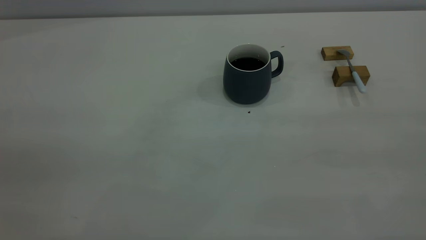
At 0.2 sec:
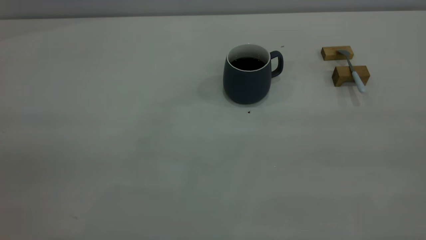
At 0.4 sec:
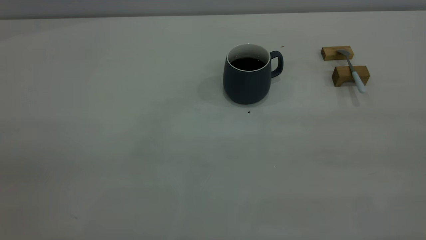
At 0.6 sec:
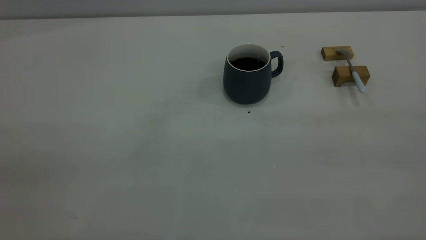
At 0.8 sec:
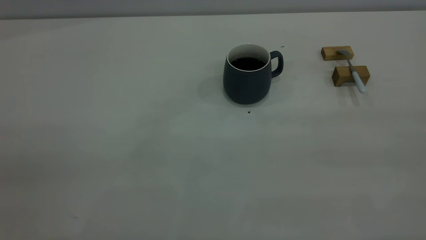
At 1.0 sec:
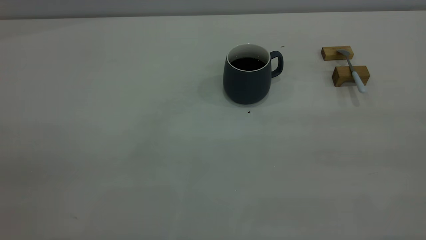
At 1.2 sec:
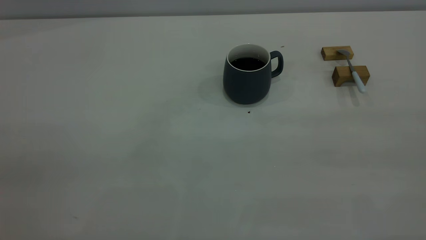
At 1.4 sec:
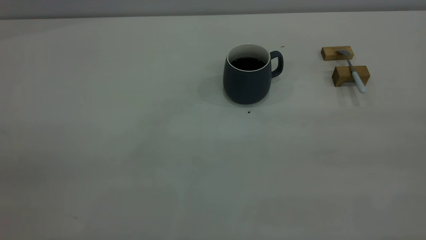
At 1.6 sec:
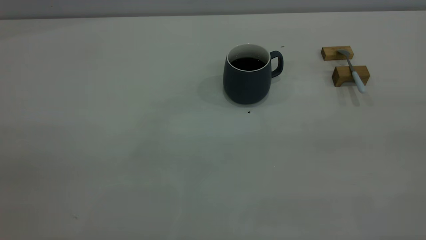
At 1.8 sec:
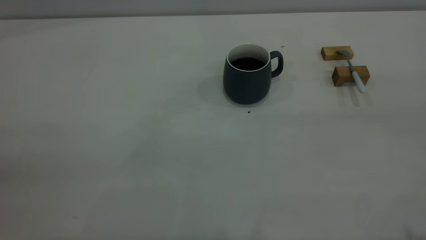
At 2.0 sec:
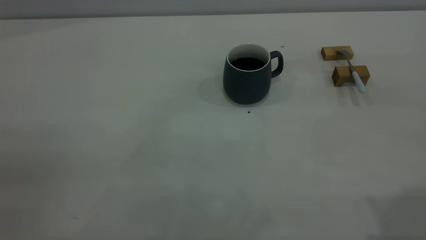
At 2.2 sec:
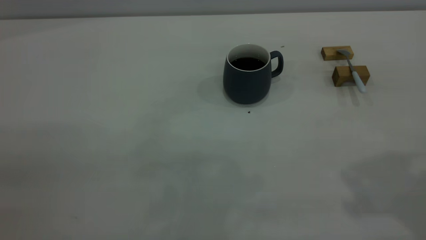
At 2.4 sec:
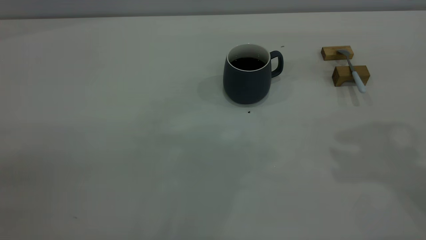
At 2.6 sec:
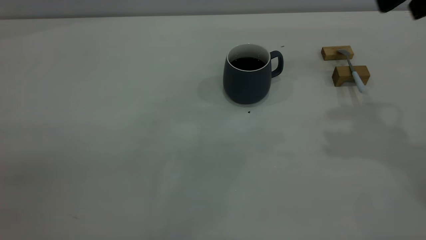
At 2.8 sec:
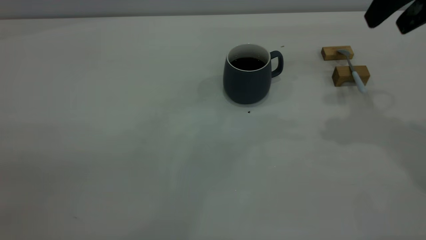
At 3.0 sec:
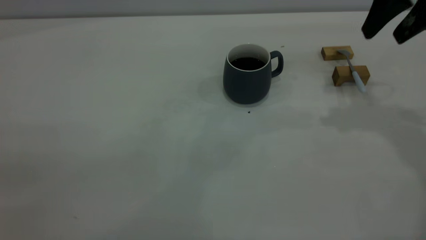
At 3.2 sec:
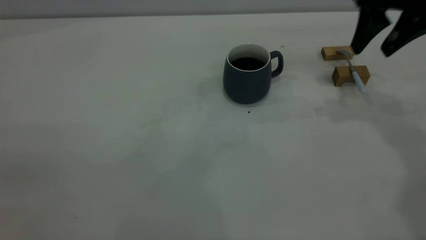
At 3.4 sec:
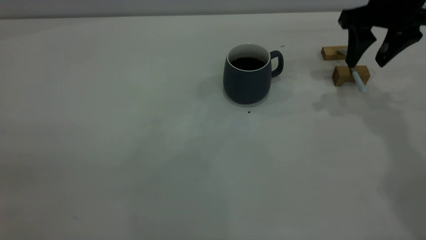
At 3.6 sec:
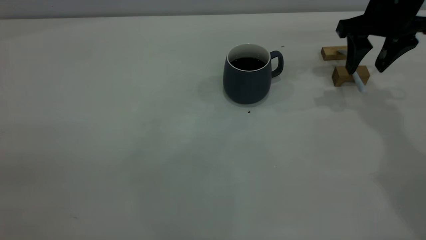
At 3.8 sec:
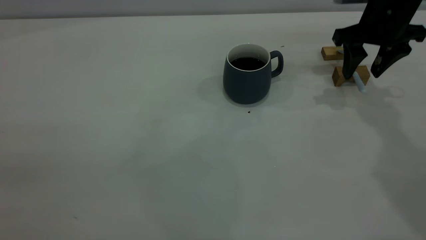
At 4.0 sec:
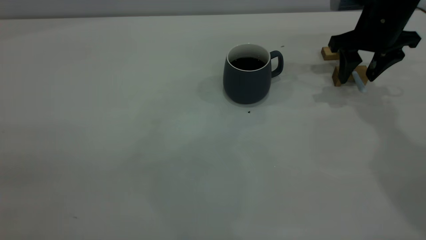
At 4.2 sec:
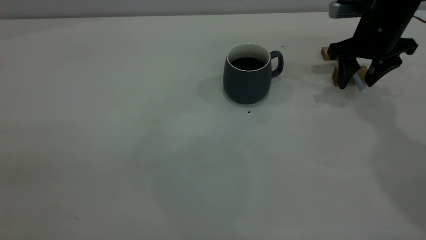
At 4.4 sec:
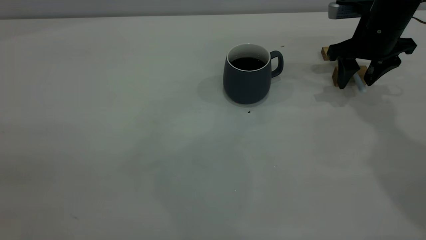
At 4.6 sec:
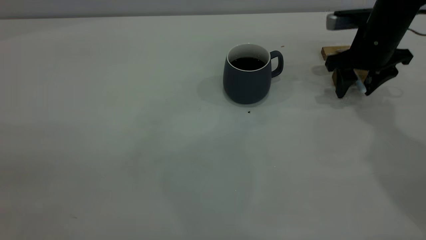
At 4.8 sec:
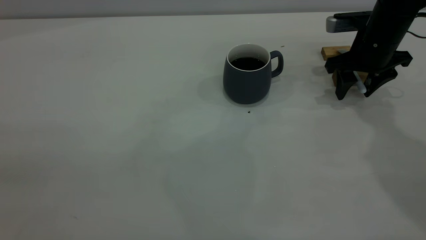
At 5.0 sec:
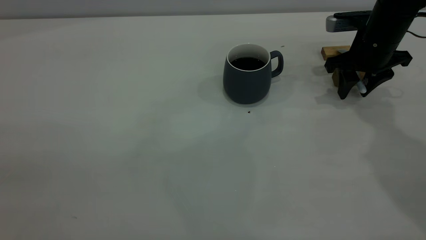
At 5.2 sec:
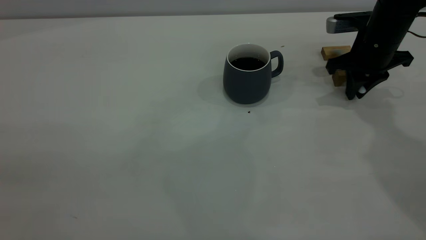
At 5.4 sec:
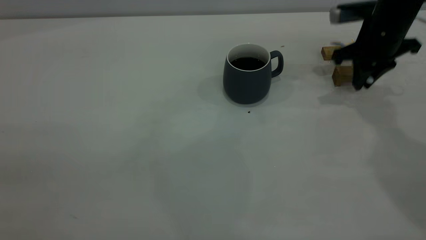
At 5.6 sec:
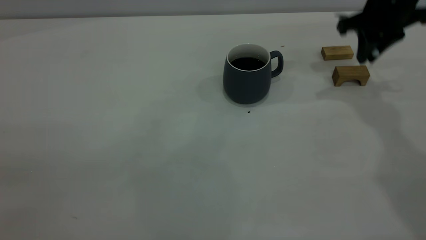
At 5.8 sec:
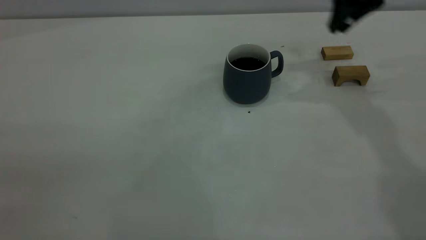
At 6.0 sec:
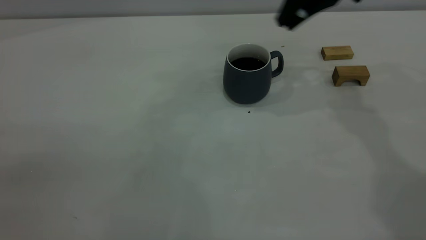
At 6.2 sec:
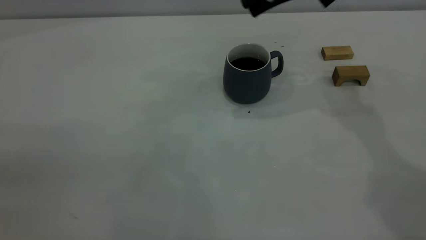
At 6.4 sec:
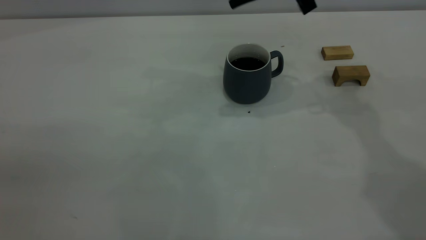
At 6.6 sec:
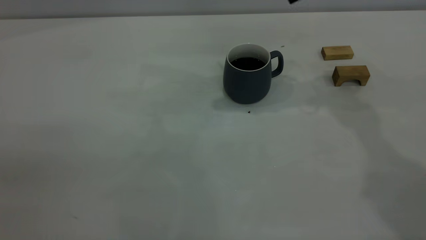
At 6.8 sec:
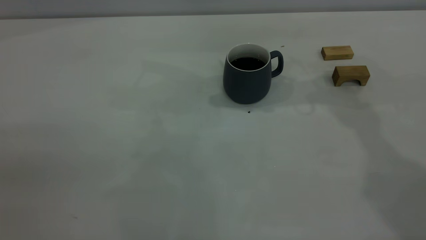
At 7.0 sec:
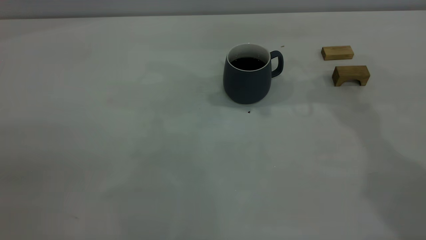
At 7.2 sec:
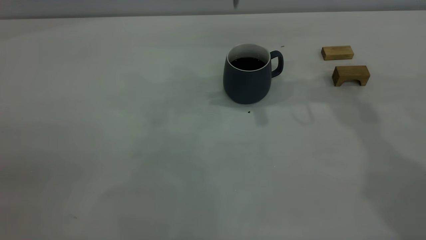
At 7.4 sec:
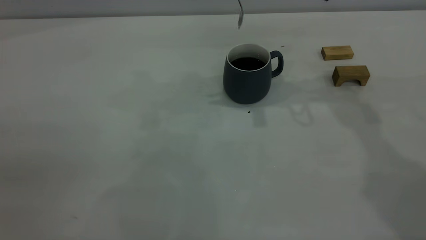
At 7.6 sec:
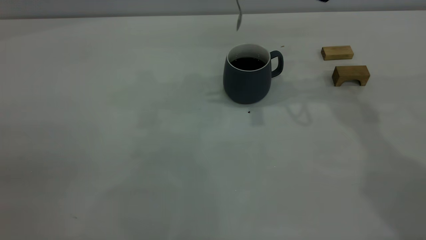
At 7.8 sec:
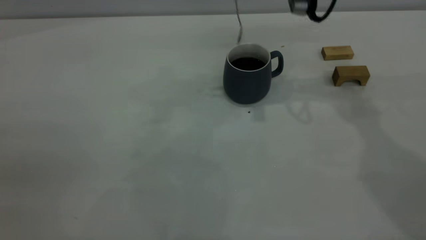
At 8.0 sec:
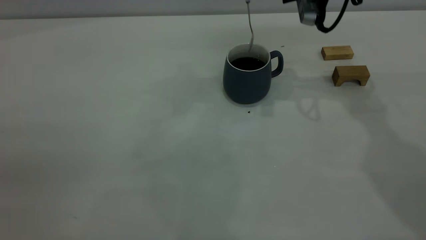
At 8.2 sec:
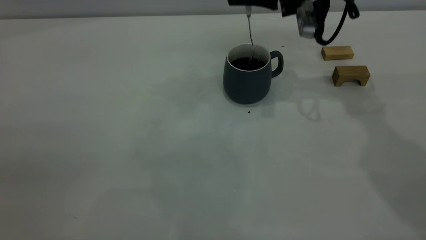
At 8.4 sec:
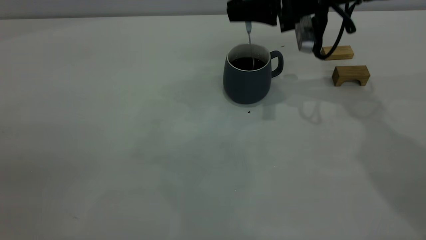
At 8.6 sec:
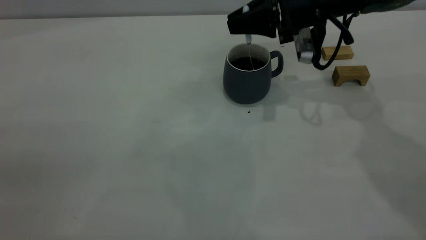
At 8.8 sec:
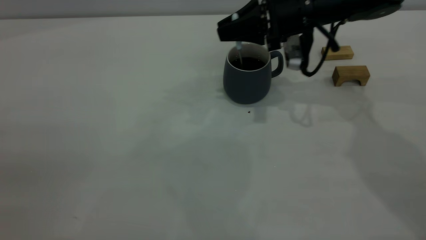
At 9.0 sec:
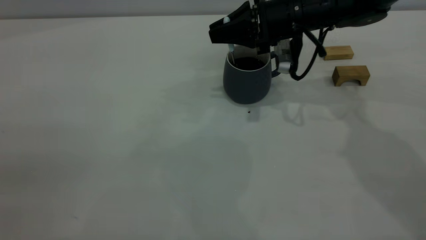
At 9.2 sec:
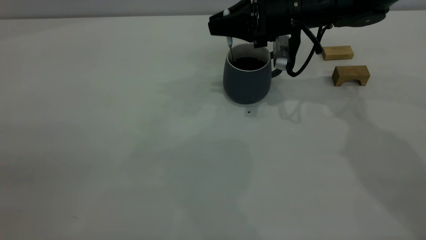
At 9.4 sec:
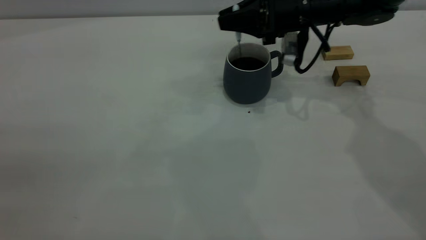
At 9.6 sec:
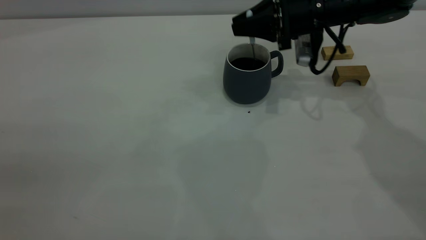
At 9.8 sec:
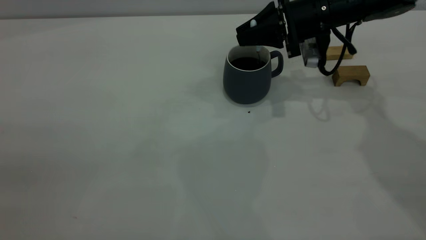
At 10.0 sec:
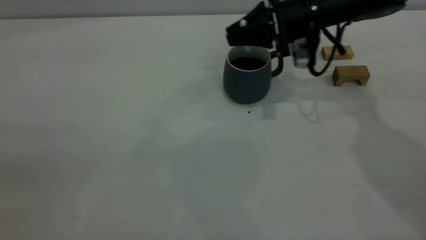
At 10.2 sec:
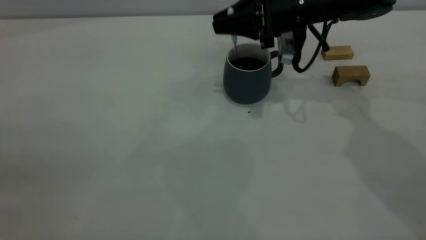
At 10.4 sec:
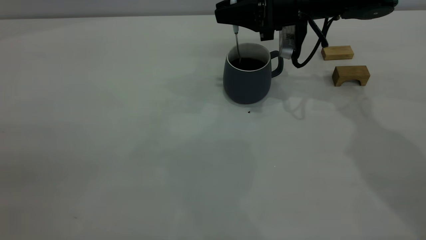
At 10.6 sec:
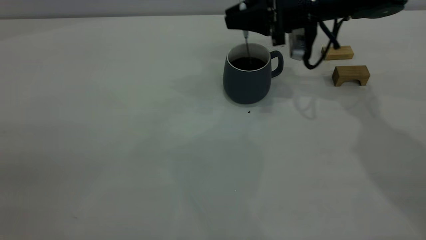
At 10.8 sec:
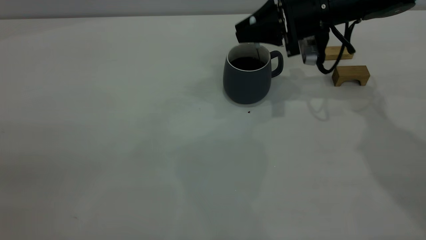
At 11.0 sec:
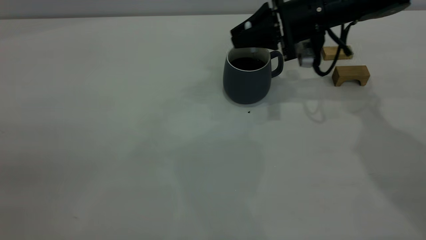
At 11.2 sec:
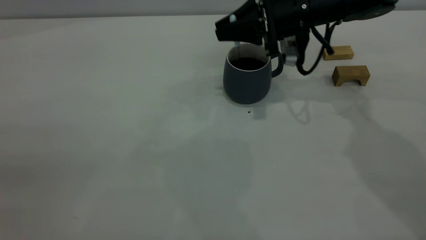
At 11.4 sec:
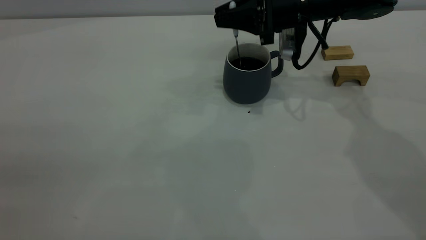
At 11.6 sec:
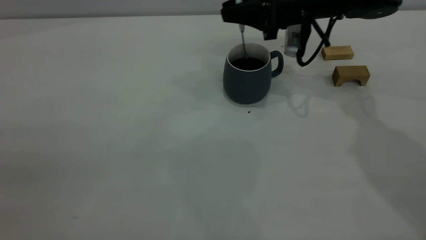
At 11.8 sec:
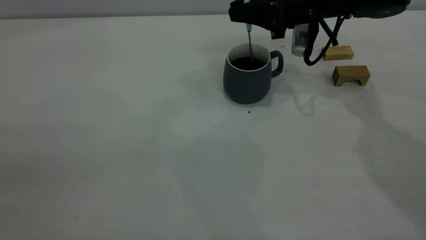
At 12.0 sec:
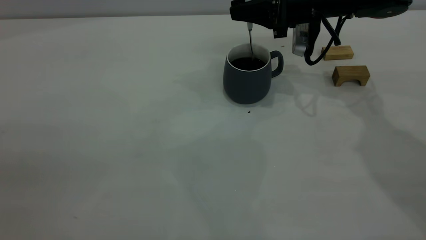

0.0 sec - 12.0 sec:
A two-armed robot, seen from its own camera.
Step, 0.0 sec - 5.6 sec: Pick up the spoon.
1.6 sec - 3.0 sec: The right gripper is displaced forward by approximately 35 cm, and opens.
3.0 sec - 4.4 sec: The right gripper is displaced downward and forward by about 15 cm.
4.4 sec - 6.0 sec: The right gripper is displaced upward and to the left by about 15 cm, and closes.
7.6 sec - 9.0 sec: The right gripper is displaced downward by approximately 15 cm.
9.0 sec - 12.0 sec: There are only small adjustments of the grippers.

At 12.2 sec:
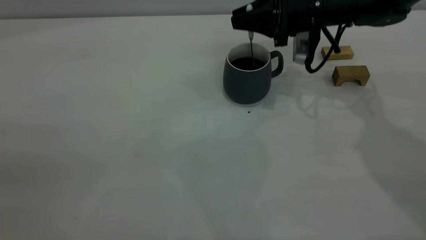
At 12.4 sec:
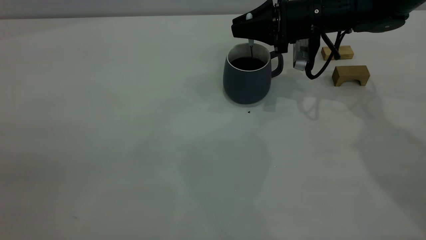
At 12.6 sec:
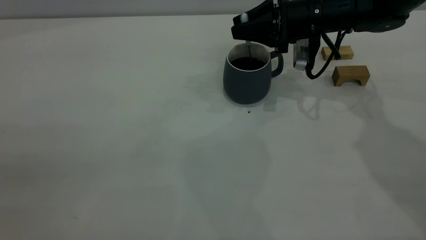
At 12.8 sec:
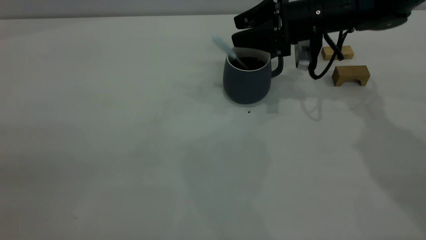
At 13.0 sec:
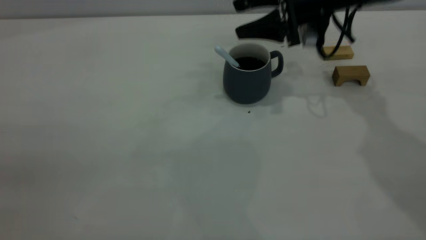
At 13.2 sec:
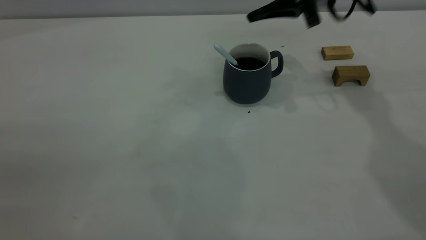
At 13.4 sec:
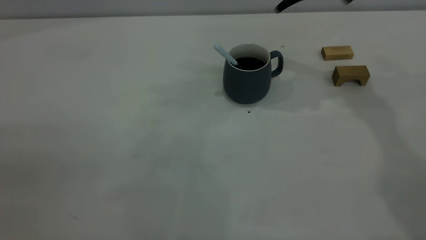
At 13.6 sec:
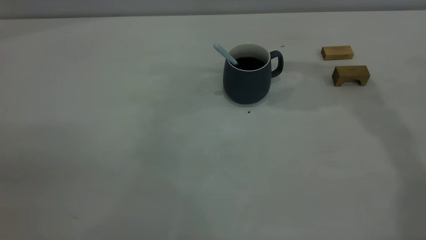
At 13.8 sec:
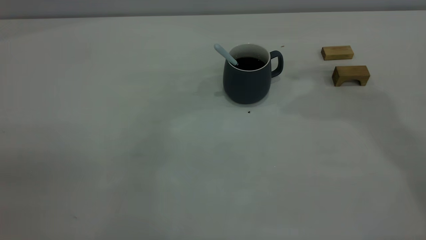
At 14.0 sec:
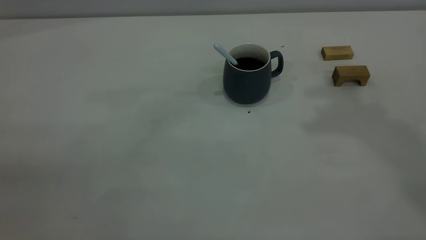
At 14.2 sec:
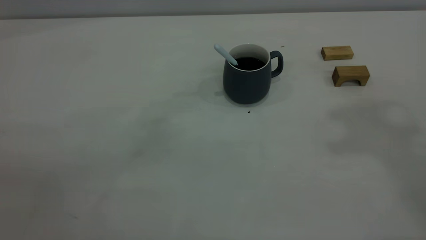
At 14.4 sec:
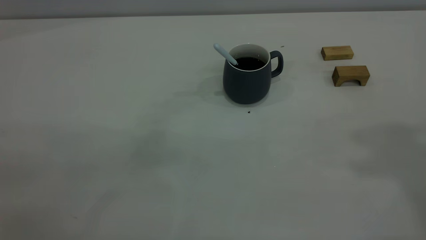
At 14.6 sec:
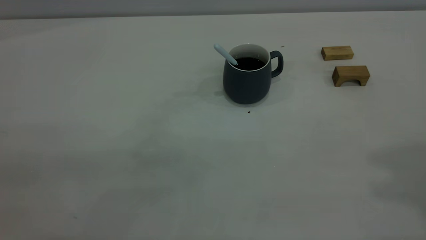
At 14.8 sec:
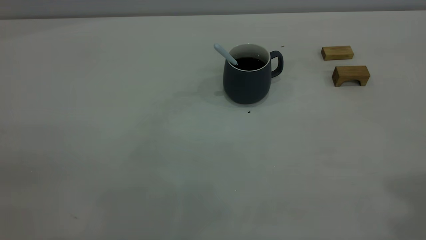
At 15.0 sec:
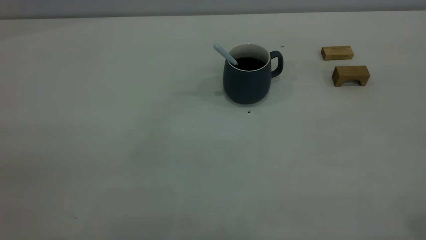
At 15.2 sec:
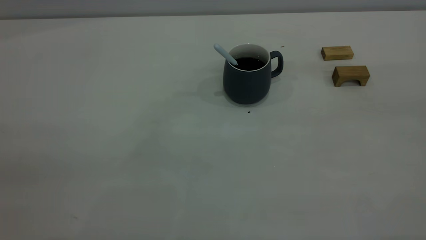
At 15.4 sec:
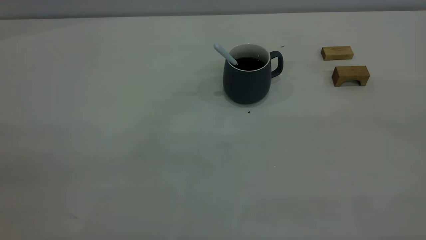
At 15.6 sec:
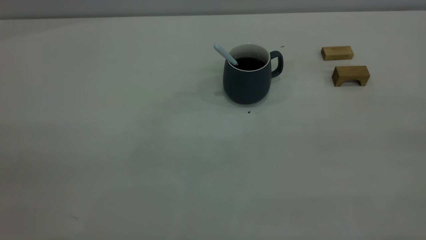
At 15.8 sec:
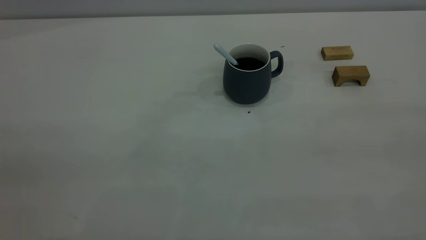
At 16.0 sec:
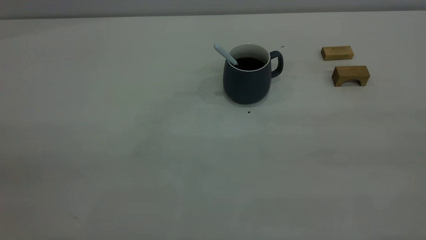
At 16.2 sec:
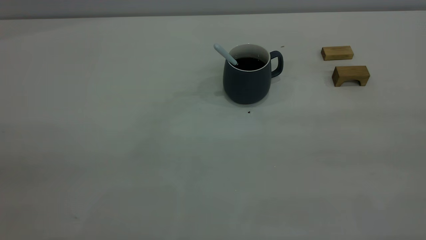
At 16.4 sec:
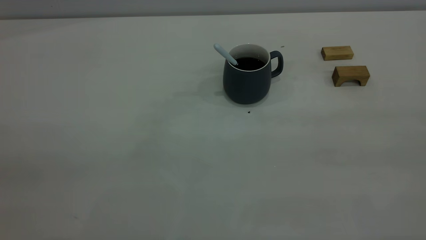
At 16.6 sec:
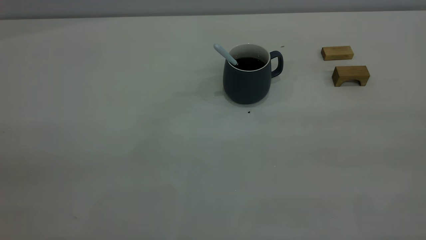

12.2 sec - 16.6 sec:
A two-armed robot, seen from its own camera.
12.2 sec - 13.6 sec: The right gripper travels upward by roughly 25 cm, and opens, then closes again.
